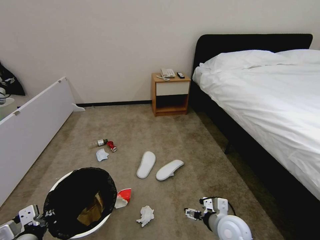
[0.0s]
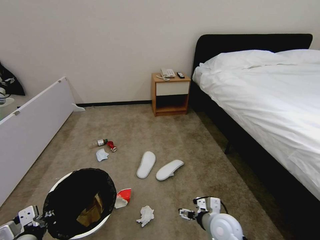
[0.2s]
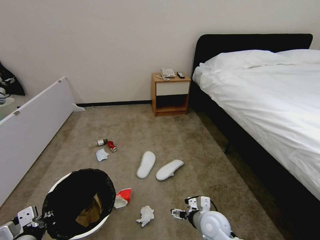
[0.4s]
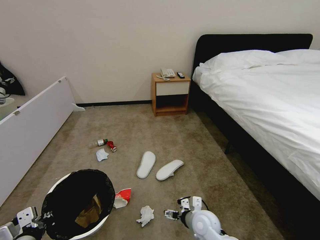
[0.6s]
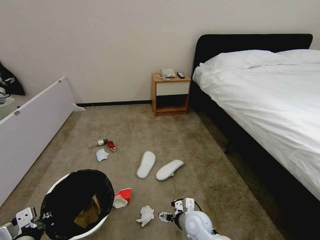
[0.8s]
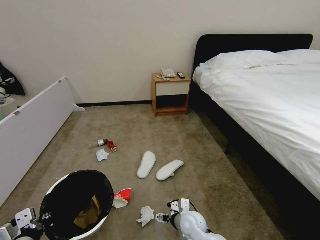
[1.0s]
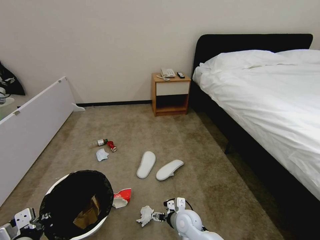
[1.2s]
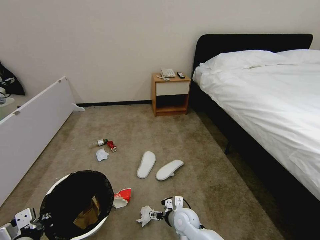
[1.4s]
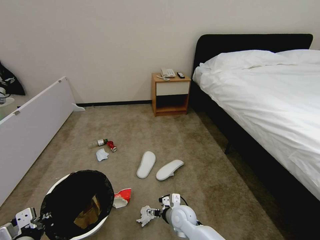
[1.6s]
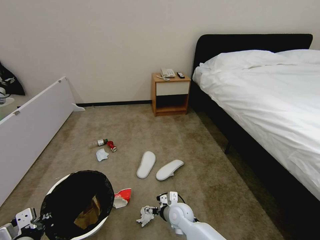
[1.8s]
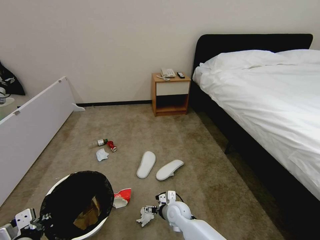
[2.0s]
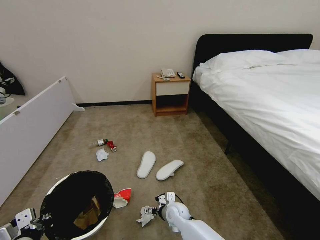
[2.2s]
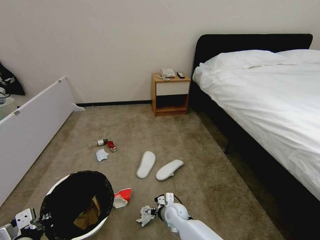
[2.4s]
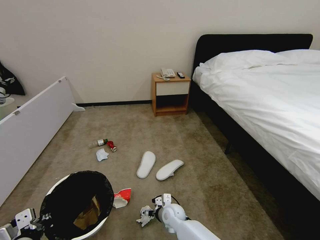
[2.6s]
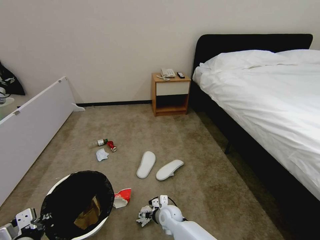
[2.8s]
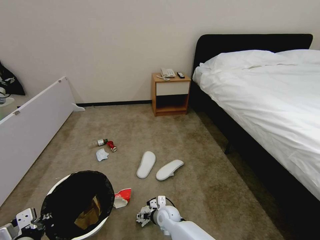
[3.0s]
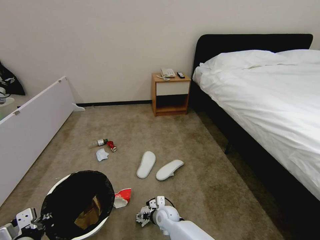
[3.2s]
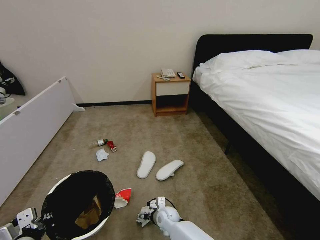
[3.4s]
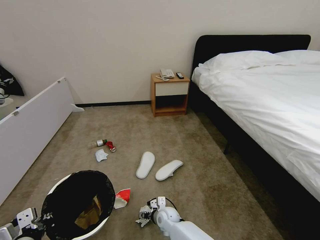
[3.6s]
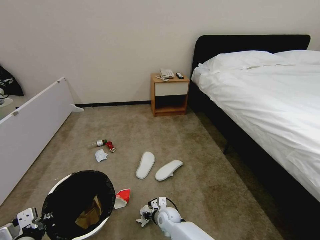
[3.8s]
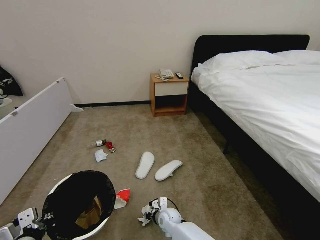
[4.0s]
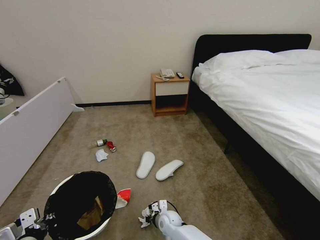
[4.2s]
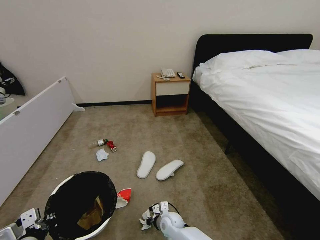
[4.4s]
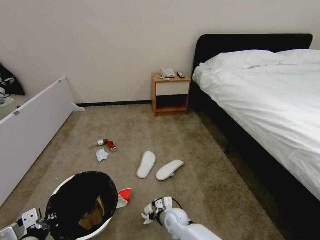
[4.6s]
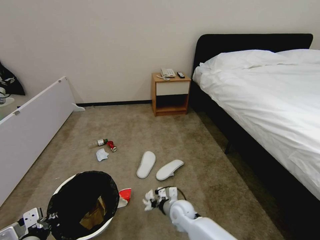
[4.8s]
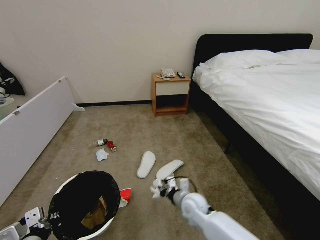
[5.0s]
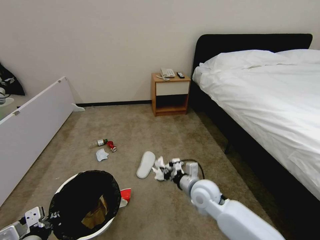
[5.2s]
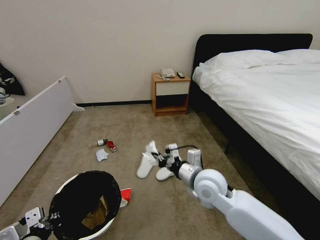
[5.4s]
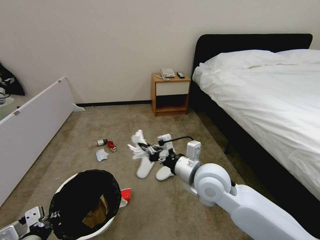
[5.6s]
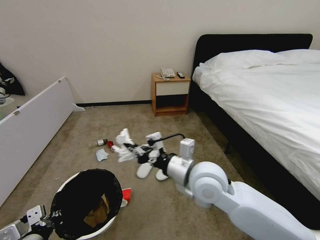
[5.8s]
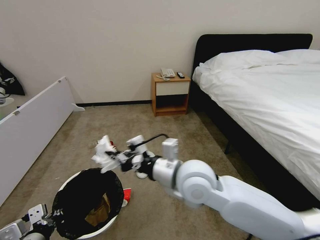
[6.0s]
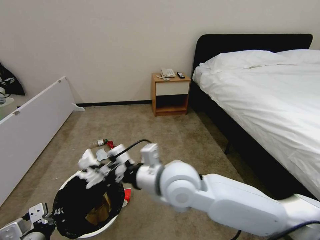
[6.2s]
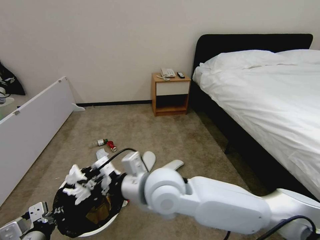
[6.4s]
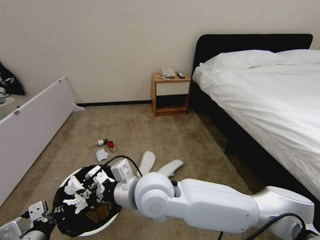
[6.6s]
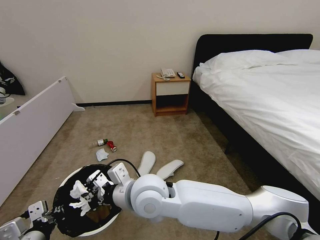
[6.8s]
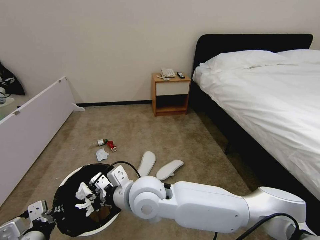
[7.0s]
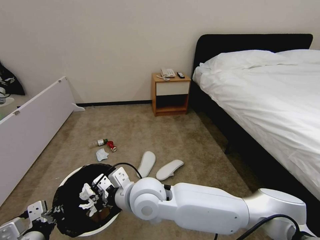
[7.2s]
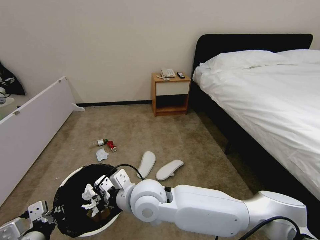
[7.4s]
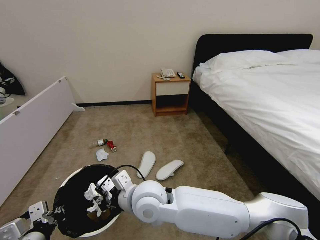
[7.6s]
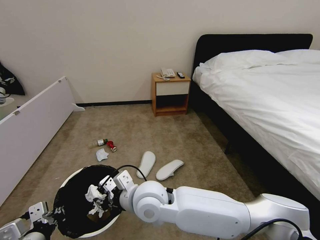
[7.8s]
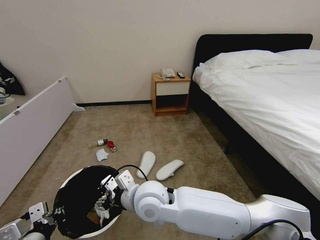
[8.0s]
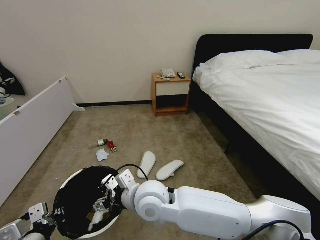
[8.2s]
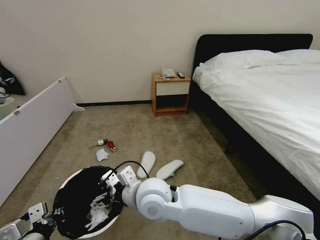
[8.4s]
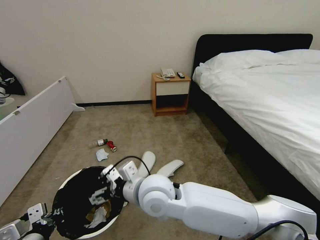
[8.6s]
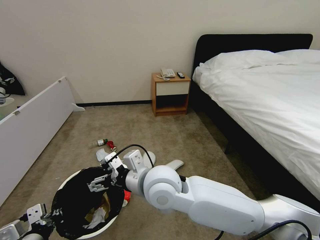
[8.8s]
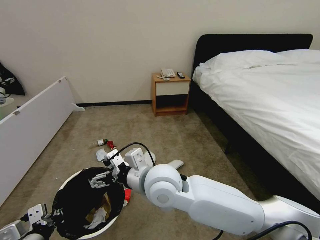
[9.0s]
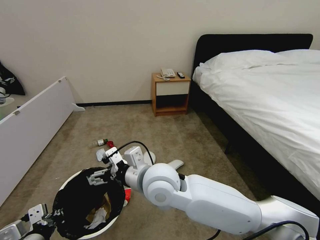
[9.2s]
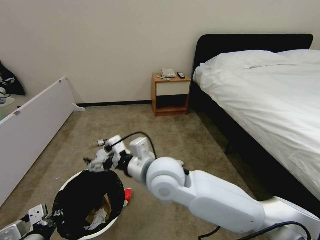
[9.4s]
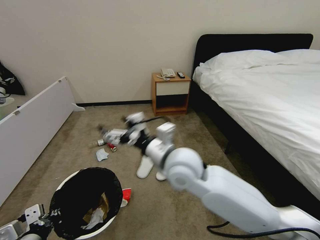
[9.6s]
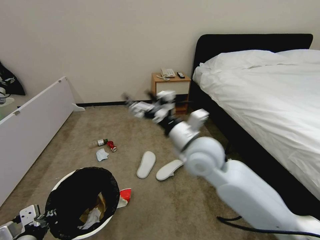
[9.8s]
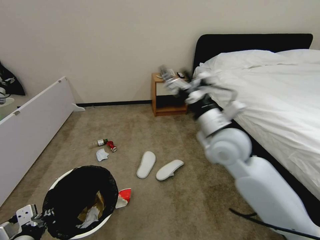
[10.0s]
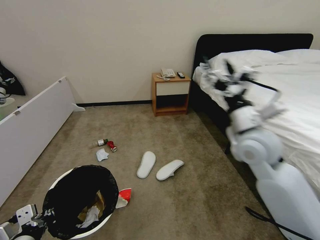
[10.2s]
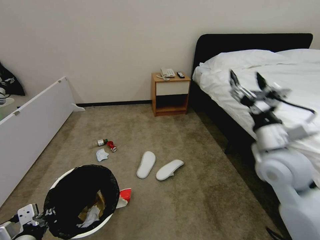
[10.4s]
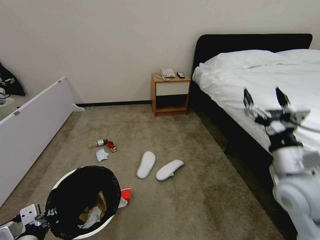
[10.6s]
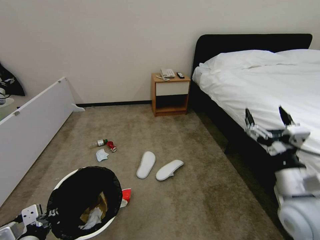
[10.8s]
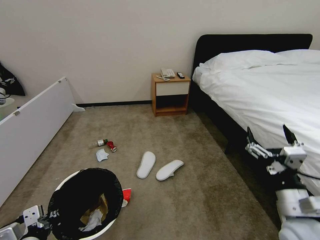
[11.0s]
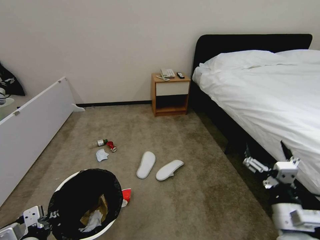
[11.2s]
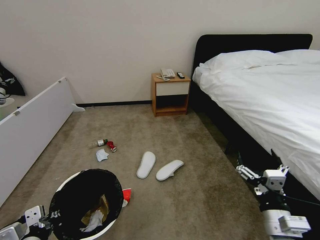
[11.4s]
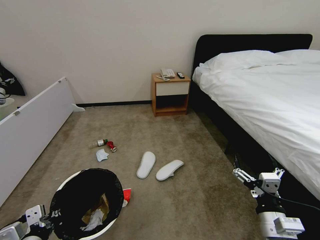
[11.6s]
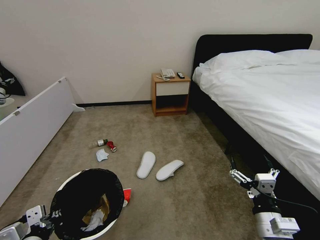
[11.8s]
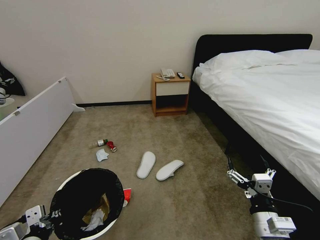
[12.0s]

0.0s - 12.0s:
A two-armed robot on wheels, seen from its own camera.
Task of the whole recording: Pick up the trash bin and place the garbage on the floor into it.
0.0s - 1.6s: The right gripper is displaced to the left, downward and forward by approximately 20 cm.
1.6s - 3.0s: The right gripper is displaced downward and to the left by approximately 10 cm.
3.0s - 4.4s: The right gripper closes up.
4.4s - 6.0s: The right gripper is displaced upward by about 40 cm.
6.0s - 7.6s: The right gripper is displaced to the left and downward by some 15 cm.
7.6s - 9.0s: The right gripper shifts roughly 5 cm upward, and opens up.
9.0s - 10.4s: The right gripper moves to the right, about 30 cm.
10.4s - 12.0s: The right gripper travels downward and backward by about 25 cm.

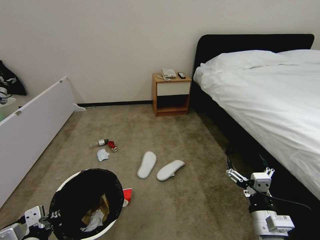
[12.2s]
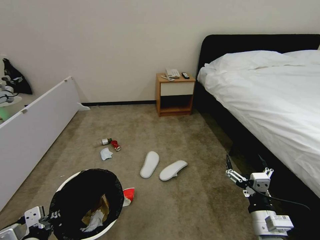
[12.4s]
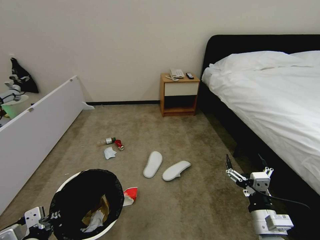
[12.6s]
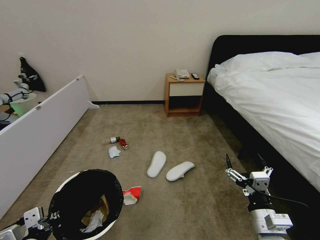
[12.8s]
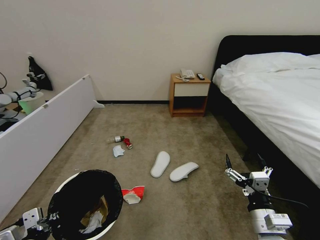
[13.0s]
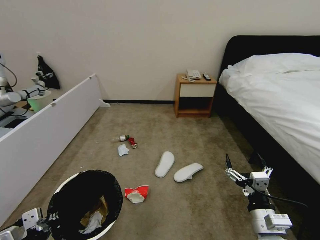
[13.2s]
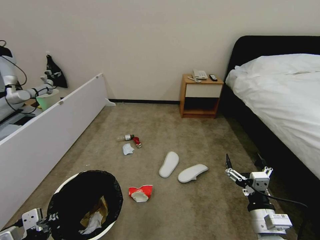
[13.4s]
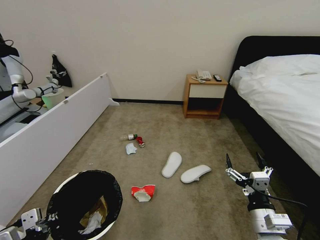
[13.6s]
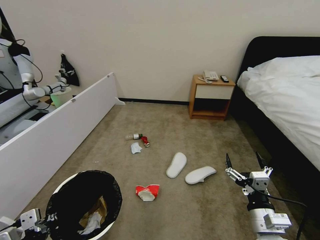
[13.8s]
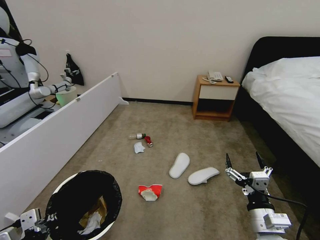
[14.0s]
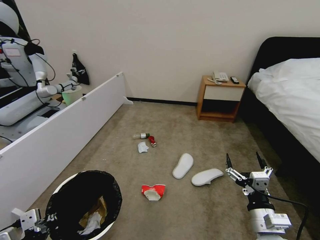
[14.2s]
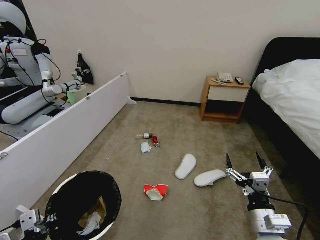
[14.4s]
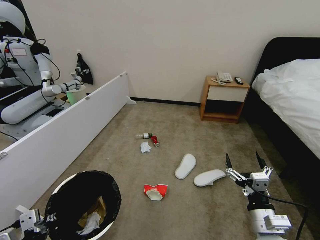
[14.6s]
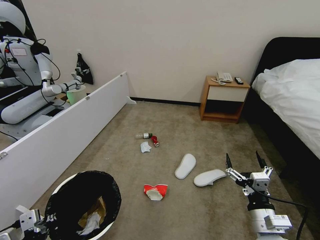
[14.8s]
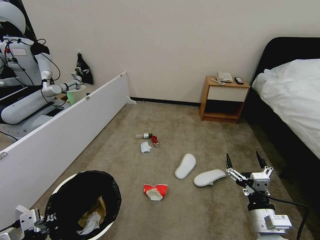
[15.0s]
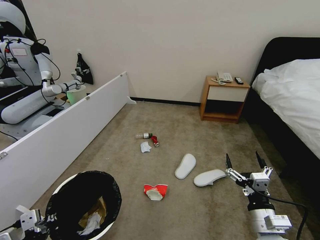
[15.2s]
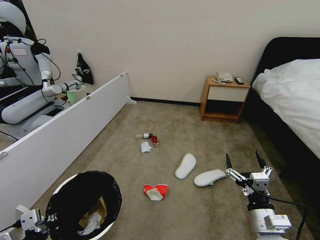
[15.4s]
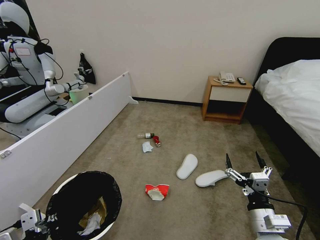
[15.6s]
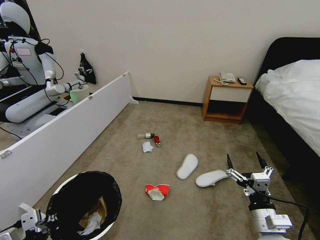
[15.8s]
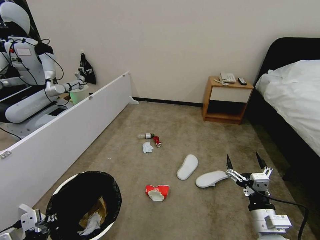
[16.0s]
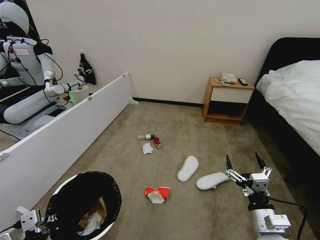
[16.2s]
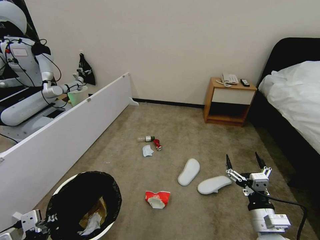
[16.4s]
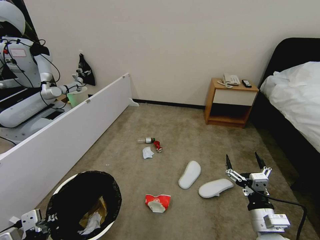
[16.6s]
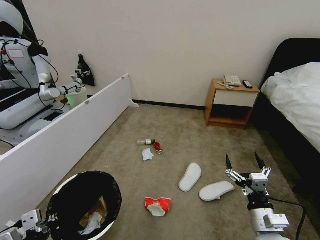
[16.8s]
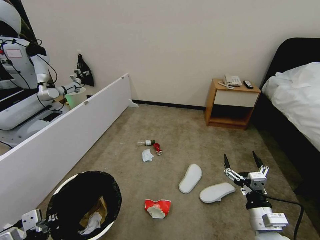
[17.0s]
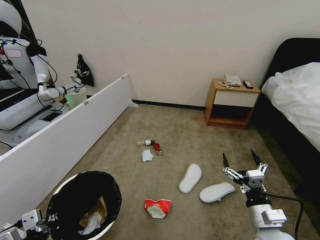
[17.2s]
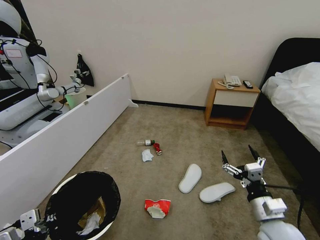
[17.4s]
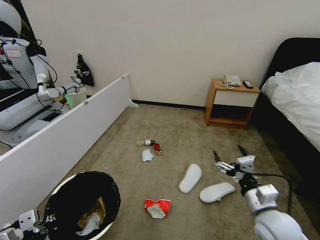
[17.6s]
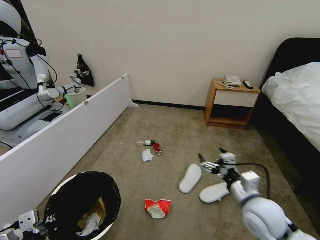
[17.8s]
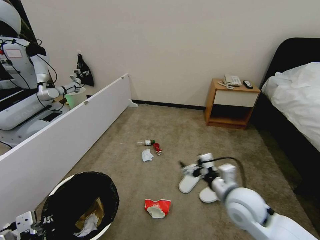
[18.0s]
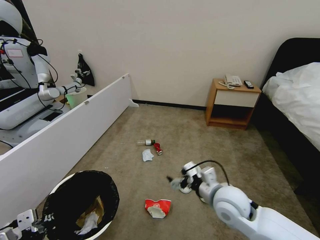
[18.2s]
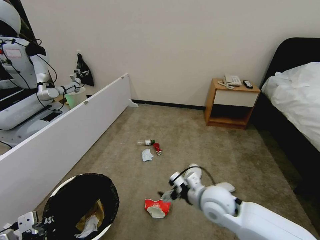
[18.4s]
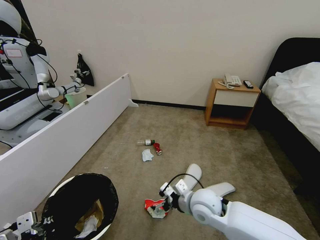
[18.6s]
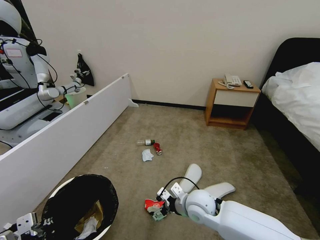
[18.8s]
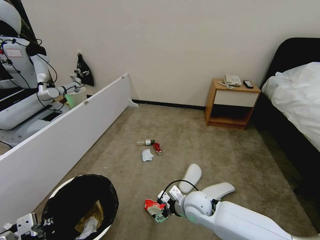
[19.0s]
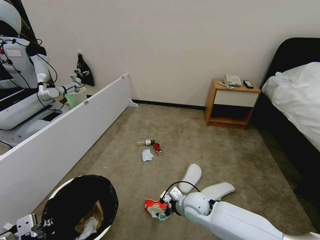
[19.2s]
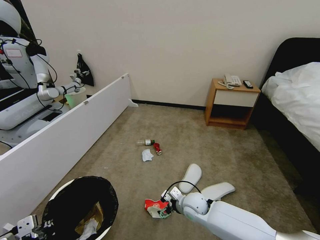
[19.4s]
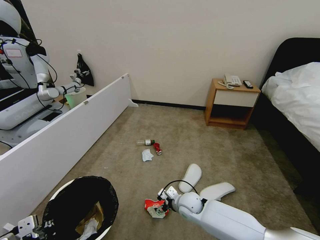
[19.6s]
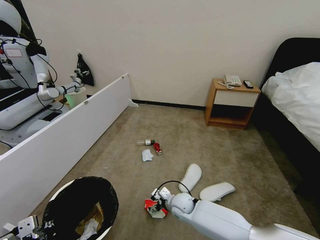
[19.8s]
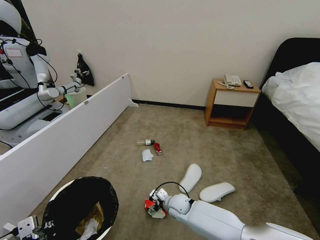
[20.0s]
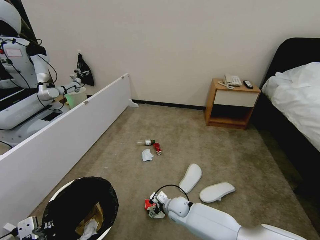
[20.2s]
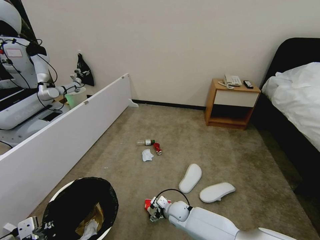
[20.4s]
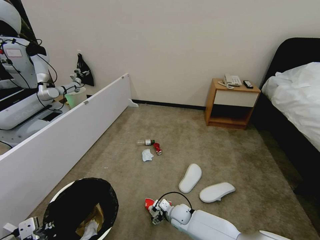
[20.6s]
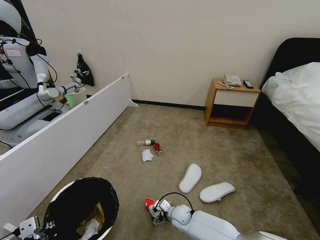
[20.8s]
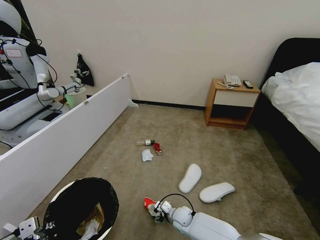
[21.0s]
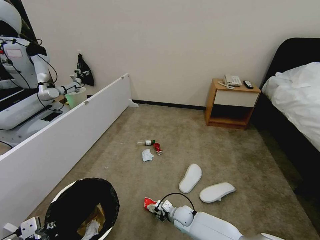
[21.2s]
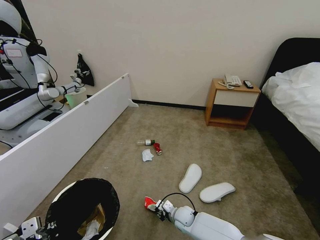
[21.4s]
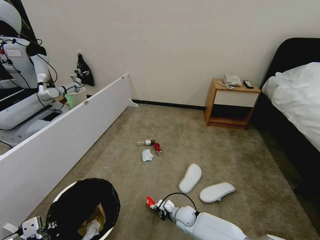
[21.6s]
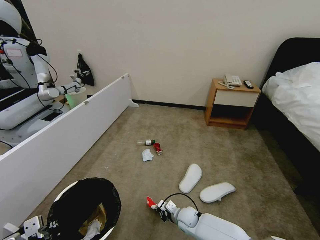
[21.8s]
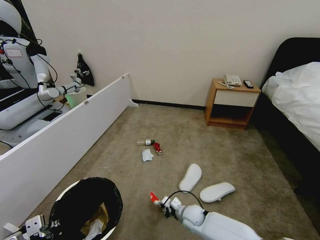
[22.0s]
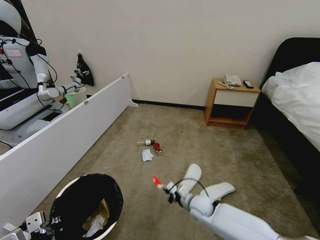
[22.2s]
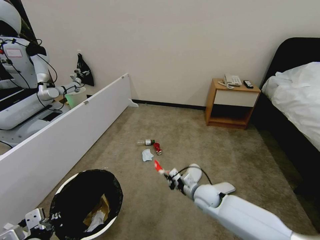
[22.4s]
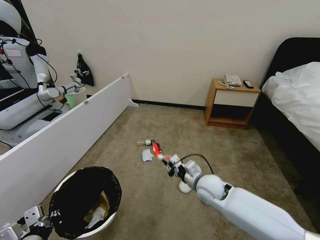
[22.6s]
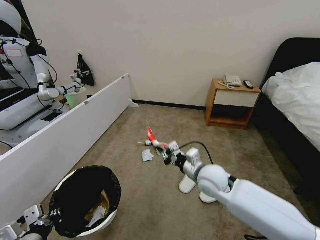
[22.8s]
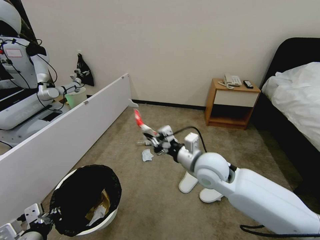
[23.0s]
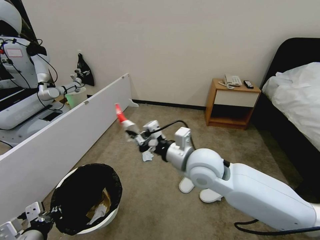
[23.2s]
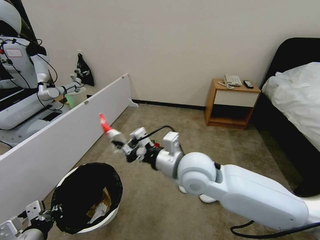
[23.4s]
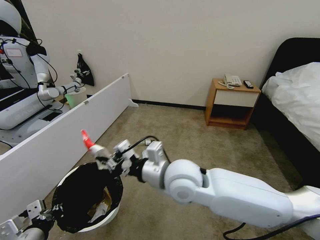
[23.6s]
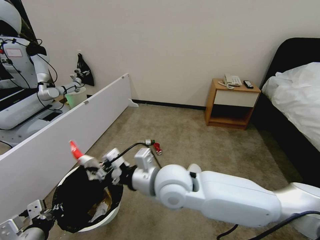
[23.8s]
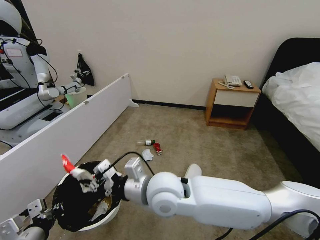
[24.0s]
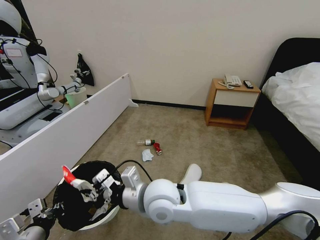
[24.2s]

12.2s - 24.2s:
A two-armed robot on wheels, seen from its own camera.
Task of the whole recording: Pick up the trash bin and place the garbage on the floor into it.
15.2s - 16.6s: Both grippers stay about where they are.
16.6s - 18.2s: The right gripper goes some 15 cm forward, to the left and upward.
18.2s - 19.8s: The right gripper travels downward, to the left and forward by approximately 25 cm.
19.8s - 21.2s: The right gripper moves downward, some 10 cm, and closes up.
21.2s - 22.6s: The right gripper goes roughly 20 cm upward, and closes up.
22.6s - 24.2s: The right gripper travels to the left, upward and backward by about 25 cm.
